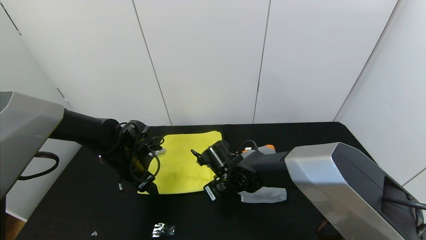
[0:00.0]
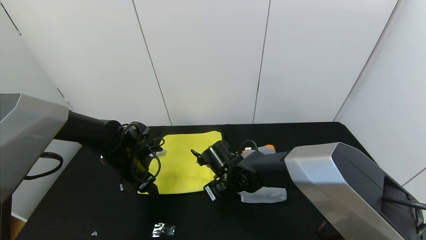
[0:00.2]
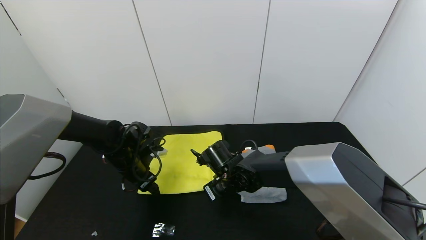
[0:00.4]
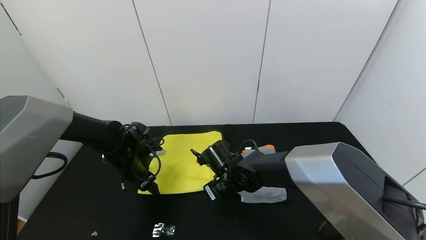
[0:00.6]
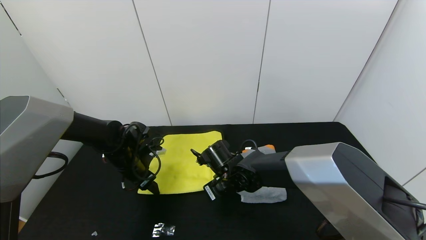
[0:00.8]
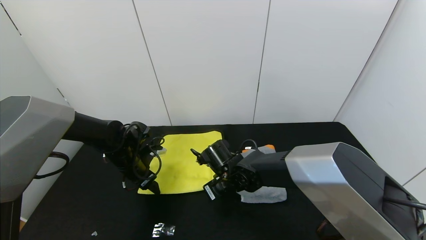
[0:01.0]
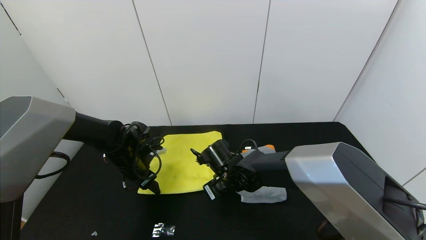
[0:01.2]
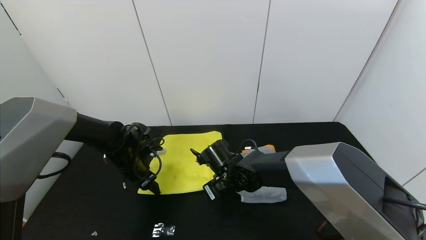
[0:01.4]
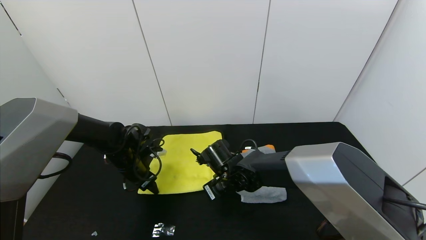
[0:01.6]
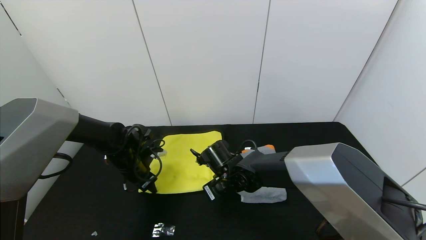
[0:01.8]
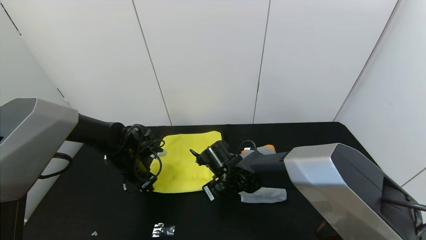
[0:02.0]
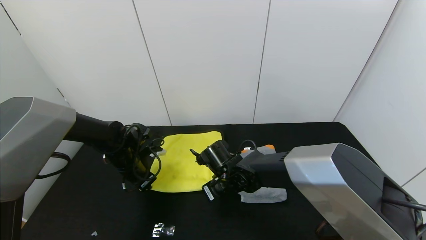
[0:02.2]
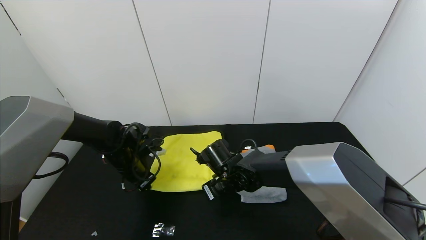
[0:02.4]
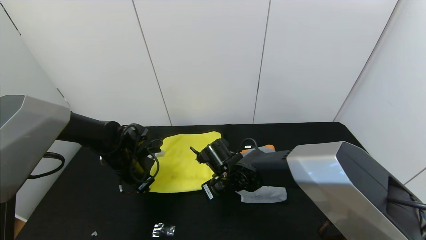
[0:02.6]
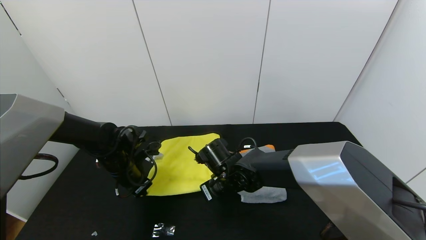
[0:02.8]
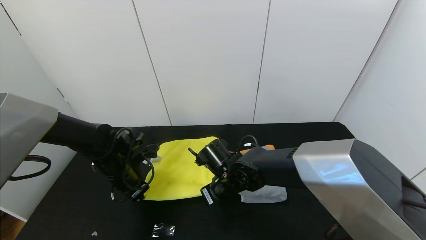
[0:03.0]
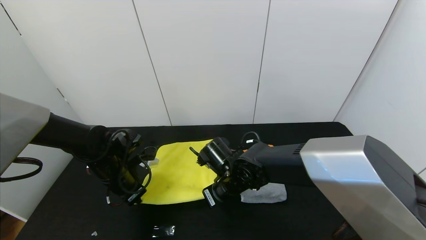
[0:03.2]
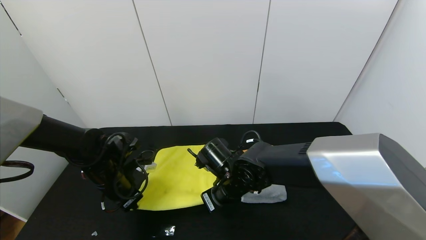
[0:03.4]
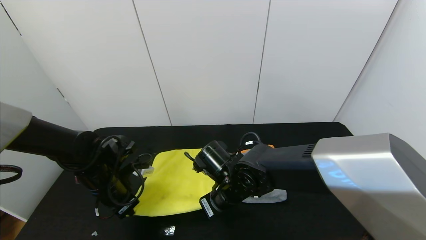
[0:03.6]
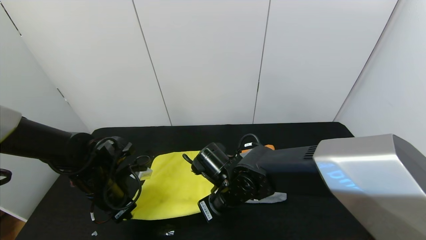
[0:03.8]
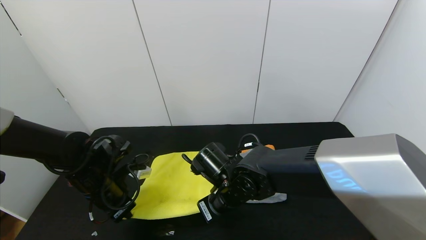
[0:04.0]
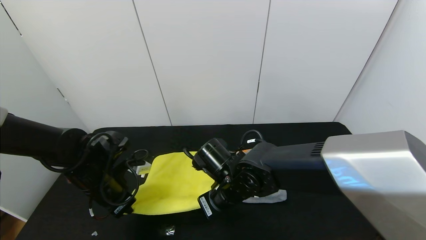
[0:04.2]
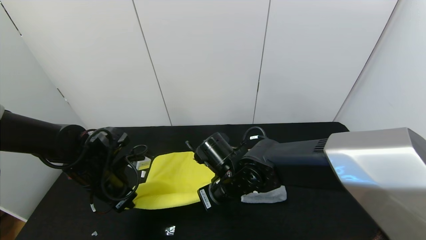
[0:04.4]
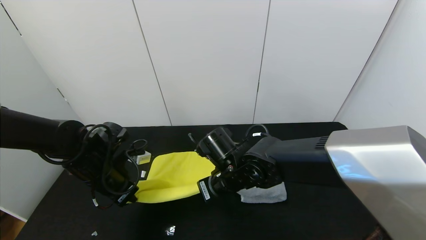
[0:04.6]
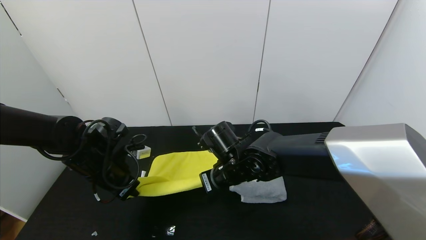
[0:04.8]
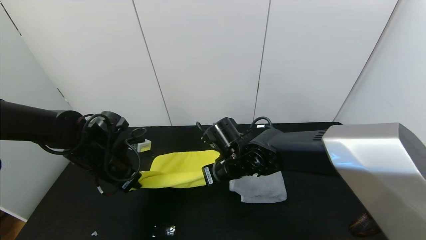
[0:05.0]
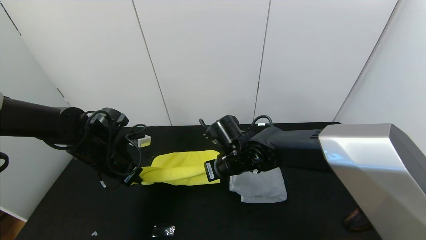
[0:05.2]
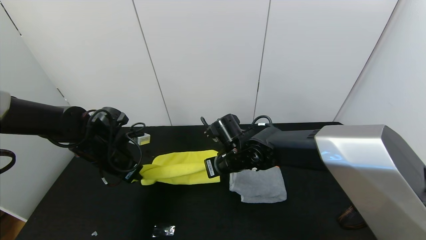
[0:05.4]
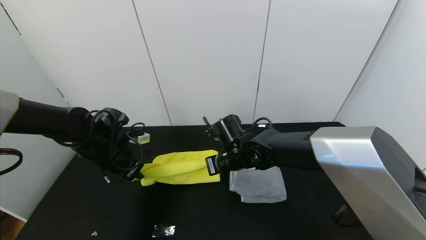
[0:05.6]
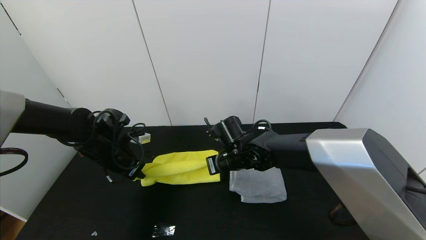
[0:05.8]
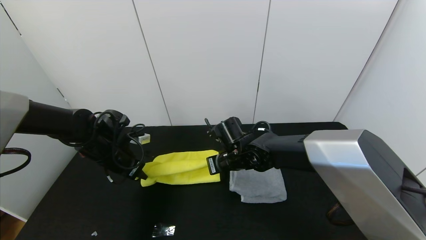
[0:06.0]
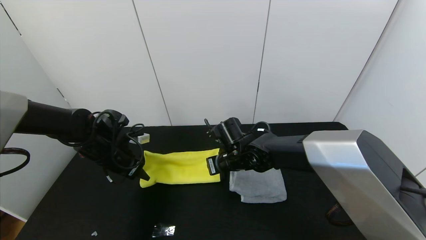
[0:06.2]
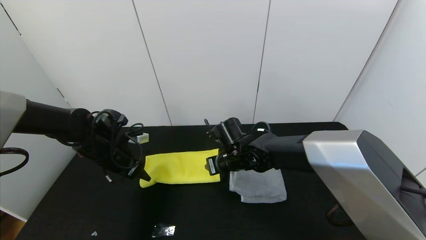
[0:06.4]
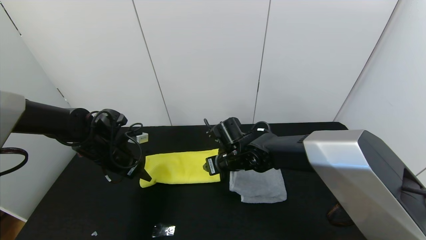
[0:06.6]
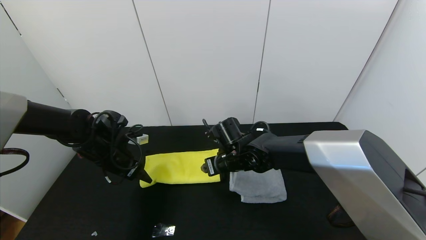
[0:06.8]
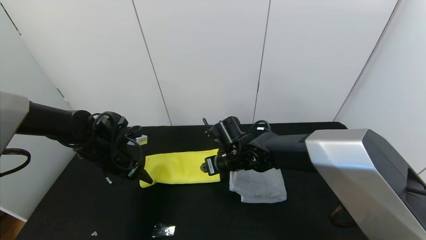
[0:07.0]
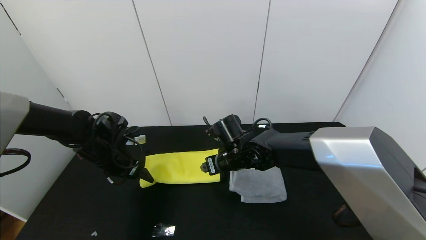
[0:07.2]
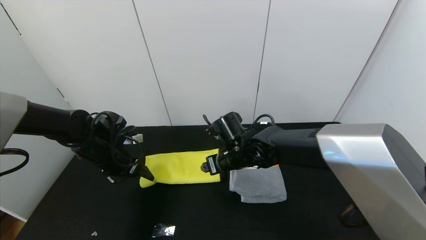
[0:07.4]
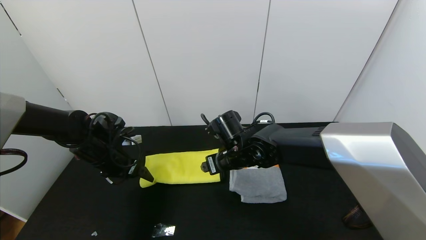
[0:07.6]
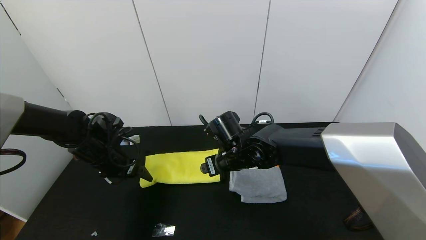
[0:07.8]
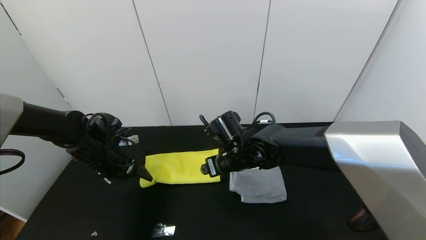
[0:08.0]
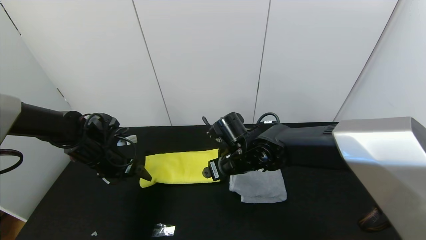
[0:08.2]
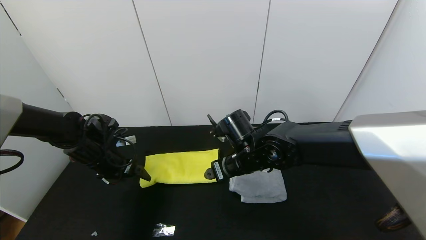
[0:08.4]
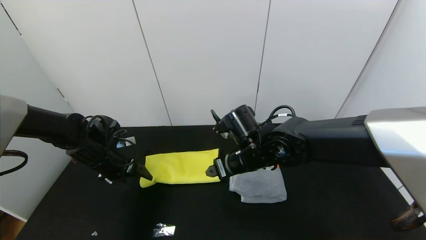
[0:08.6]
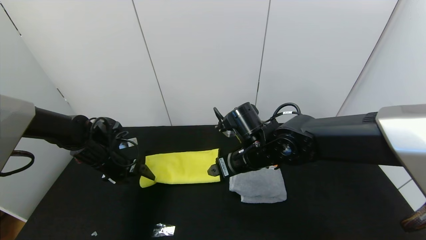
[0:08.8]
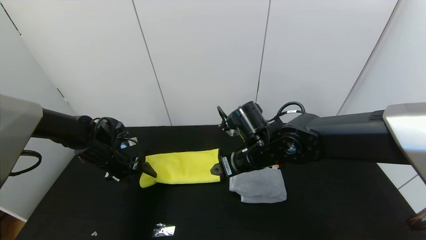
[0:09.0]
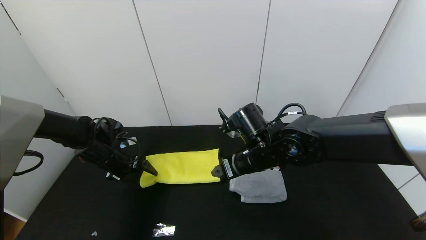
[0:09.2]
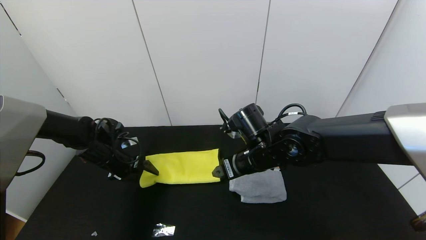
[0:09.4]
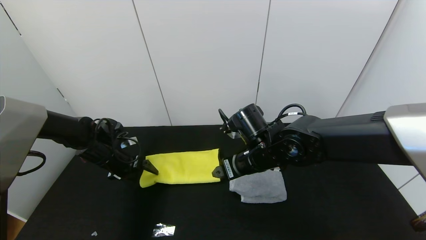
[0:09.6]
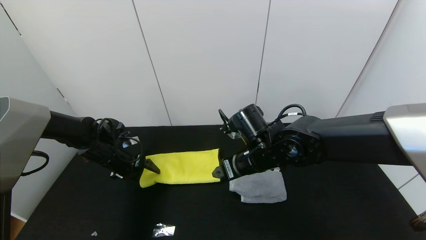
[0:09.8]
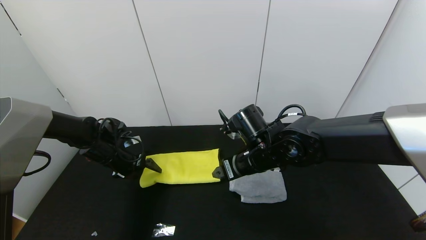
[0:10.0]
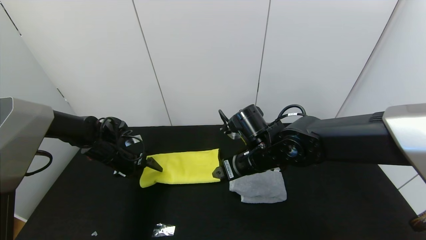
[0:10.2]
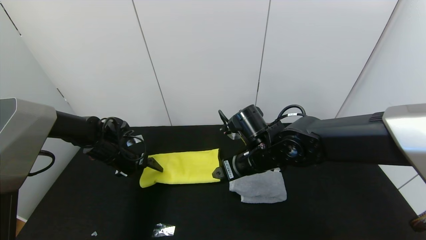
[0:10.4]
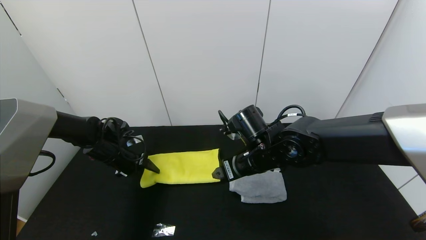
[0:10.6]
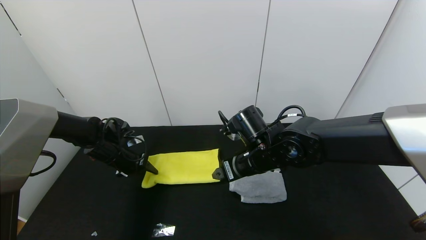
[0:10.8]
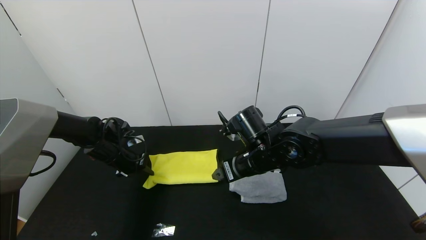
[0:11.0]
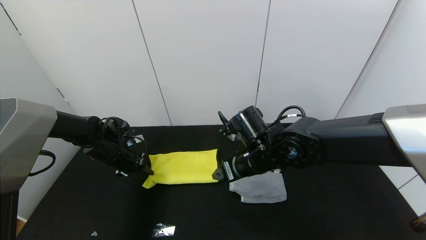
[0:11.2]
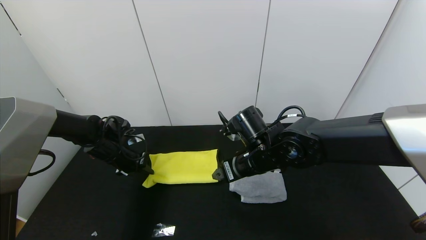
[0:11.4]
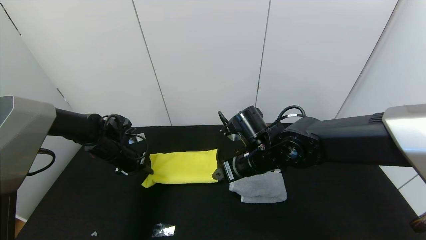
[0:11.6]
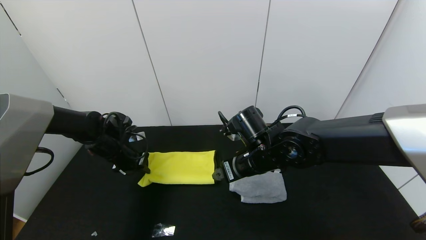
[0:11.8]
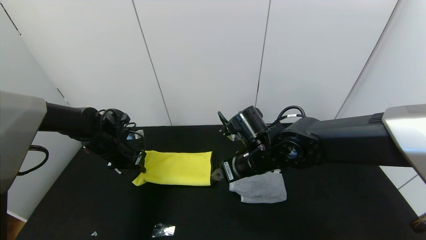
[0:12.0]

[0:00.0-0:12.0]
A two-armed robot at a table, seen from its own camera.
Task of the whole recording: Use the gripper to fold the yellow towel and grey towel in half twice,then put the yellow towel on the grey towel.
Step, 0:00.0 to 0:06.2: Fold the yellow towel upwards with the left gripper.
Step, 0:00.0 to 0:06.2: Fold the yellow towel upwards with the right gripper.
0:00.0 to 0:01.6: The grippers make only small movements.
0:01.6 to 0:03.0: The left gripper closes up.
0:03.0 to 0:04.4: The left gripper moves some 5 cm; the right gripper ends up roughly 5 cm from where it was.
0:04.4 to 0:06.0: Both grippers travel together forward, roughly 5 cm.
0:06.0 to 0:07.6: The right gripper opens, while the left gripper opens.
0:07.6 to 0:09.0: The right gripper ends up about 5 cm from where it was.
0:09.0 to 0:10.4: The grippers stay close to where they were, moving slightly.
0:10.4 to 0:12.0: The left gripper closes up.

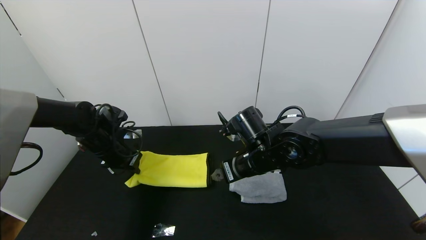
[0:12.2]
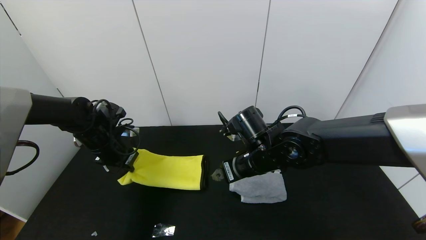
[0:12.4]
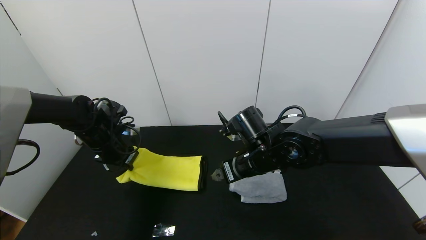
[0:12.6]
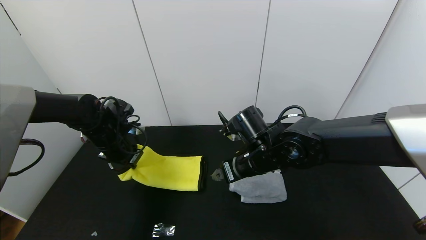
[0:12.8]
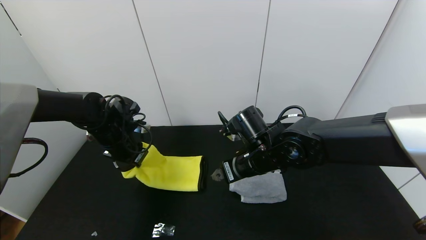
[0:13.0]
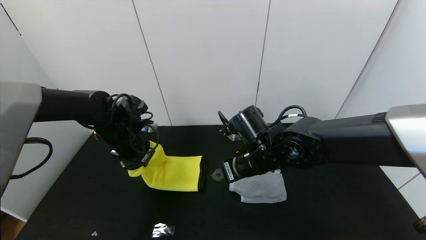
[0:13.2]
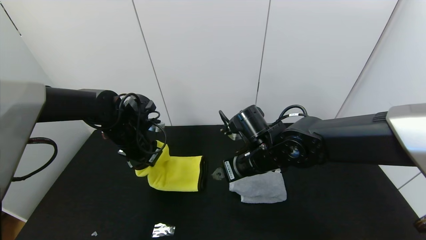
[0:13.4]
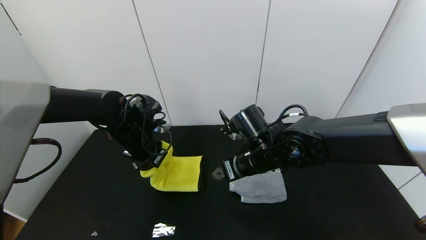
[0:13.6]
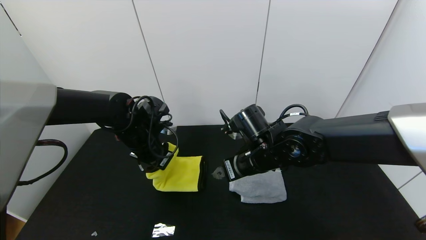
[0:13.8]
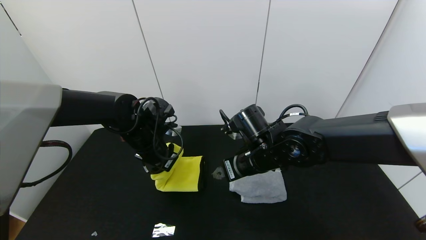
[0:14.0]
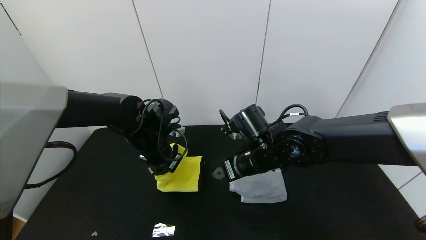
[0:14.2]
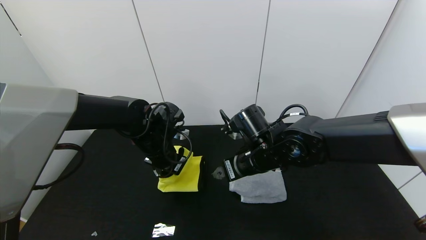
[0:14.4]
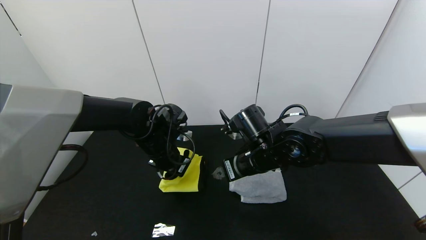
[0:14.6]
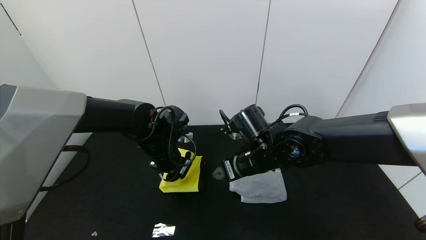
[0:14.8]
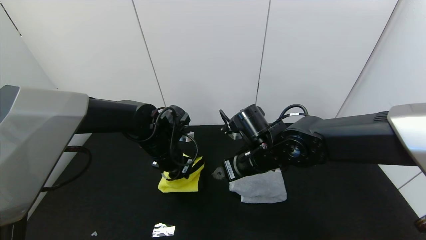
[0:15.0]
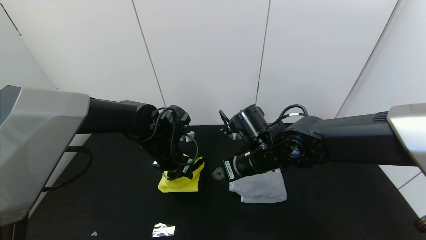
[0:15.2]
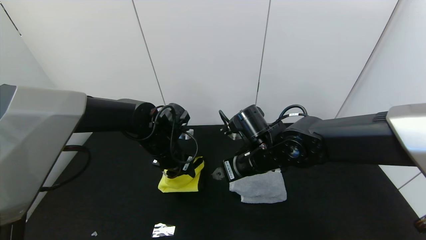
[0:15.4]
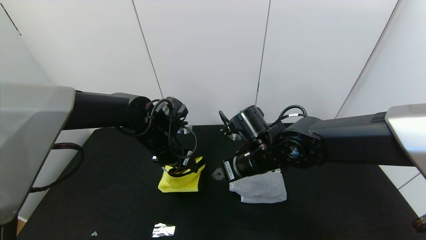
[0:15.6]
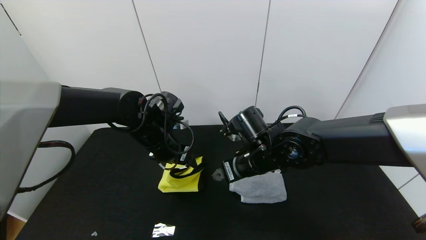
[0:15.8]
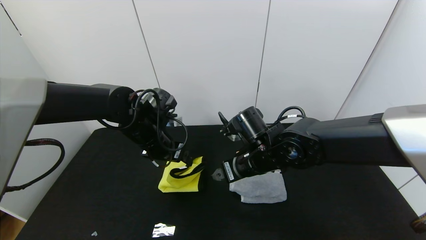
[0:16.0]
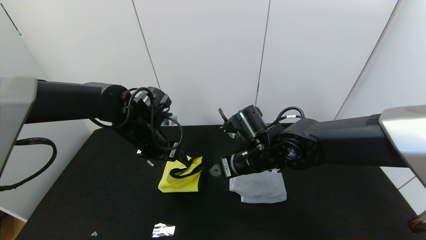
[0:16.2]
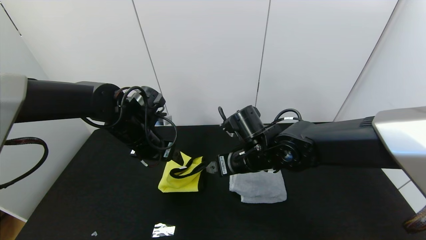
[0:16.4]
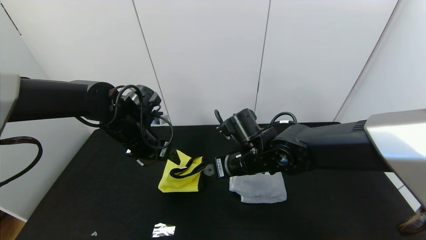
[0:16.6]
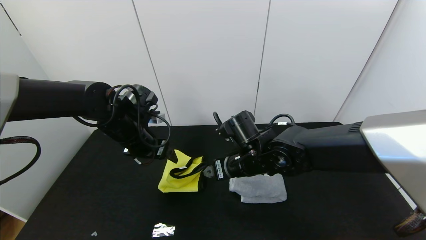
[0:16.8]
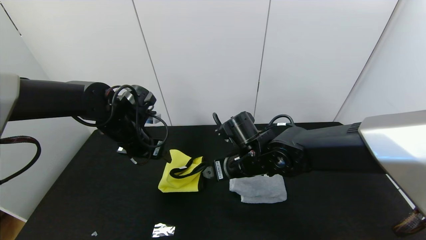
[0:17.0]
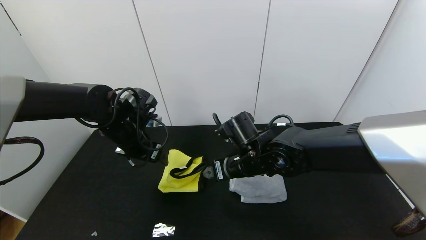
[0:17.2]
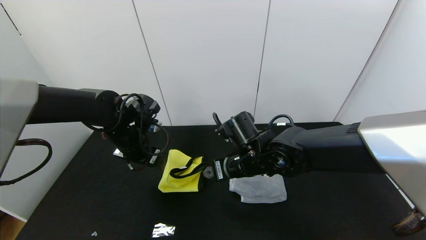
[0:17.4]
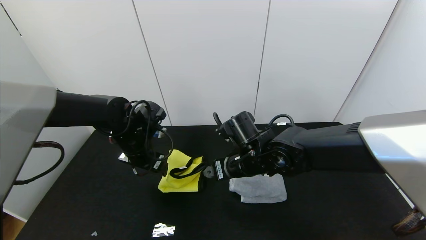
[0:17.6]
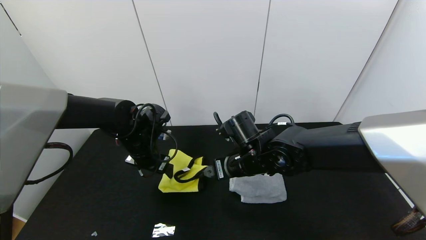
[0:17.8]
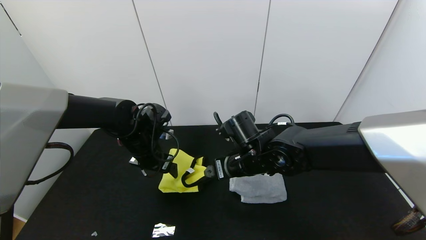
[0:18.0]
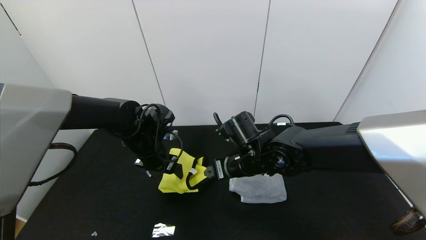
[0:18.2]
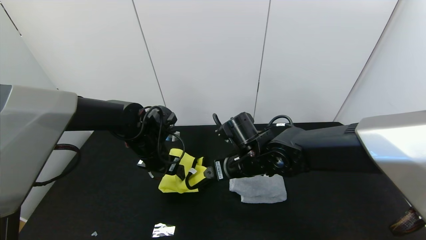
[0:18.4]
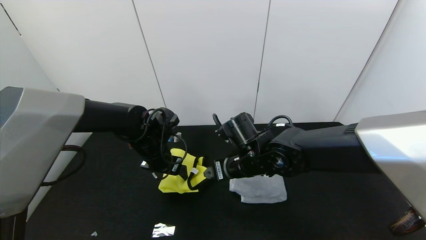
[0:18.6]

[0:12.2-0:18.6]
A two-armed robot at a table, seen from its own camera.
Task of the whole recording: Use the gripper to fold the yellow towel and grey towel in half twice,then put the yellow towel on the grey towel.
Step, 0:12.2 to 0:15.8: Fold the yellow towel from left to right with left gripper.
0:12.2 to 0:13.8: The left gripper moves to the right, about 10 cm.
0:13.8 to 0:15.4: The left gripper ends up approximately 5 cm from where it was, and opens its fingers.
0:15.4 to 0:17.0: The left gripper shifts approximately 5 cm to the left.
0:17.0 to 0:18.6: The left gripper travels downward by some 5 cm.
